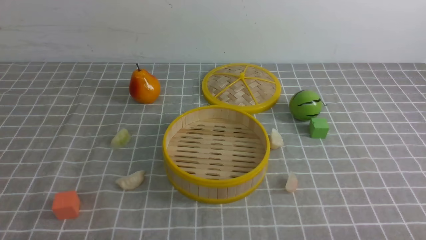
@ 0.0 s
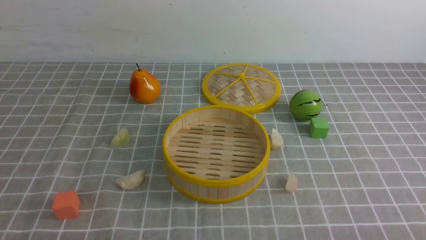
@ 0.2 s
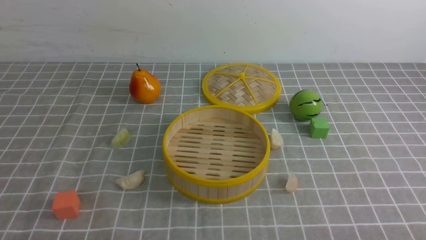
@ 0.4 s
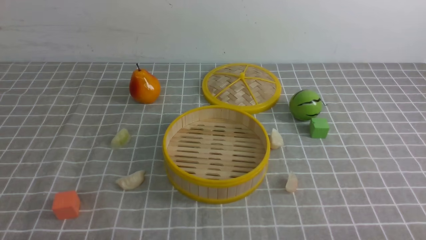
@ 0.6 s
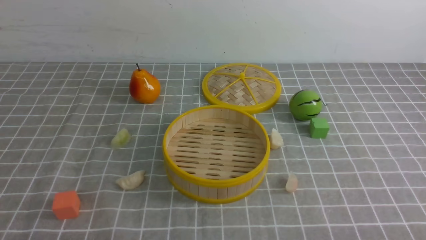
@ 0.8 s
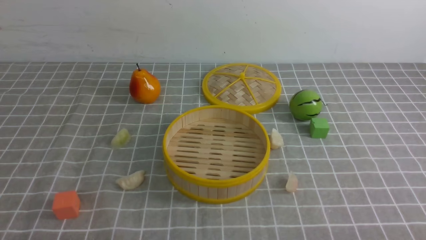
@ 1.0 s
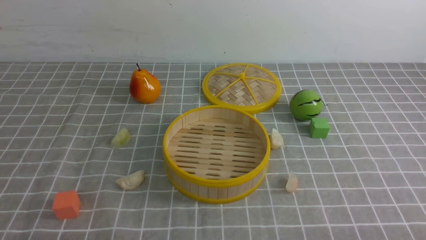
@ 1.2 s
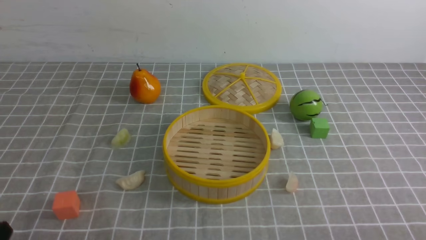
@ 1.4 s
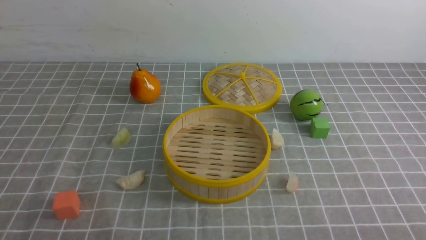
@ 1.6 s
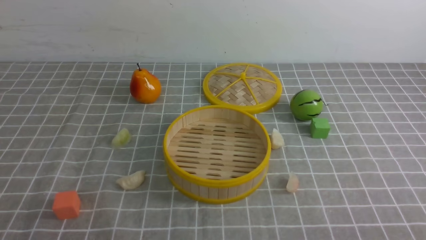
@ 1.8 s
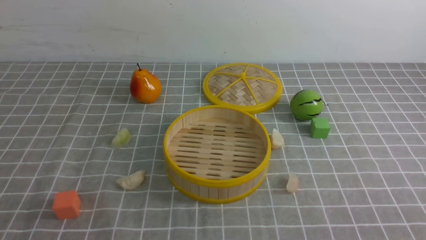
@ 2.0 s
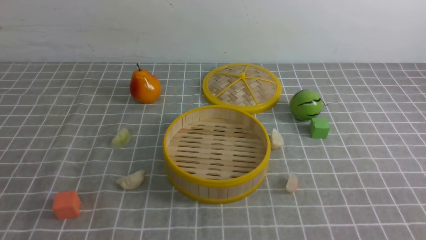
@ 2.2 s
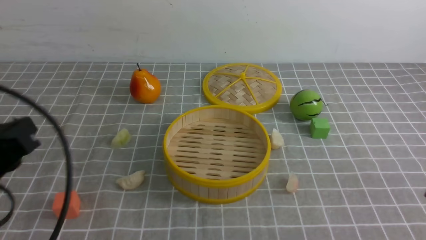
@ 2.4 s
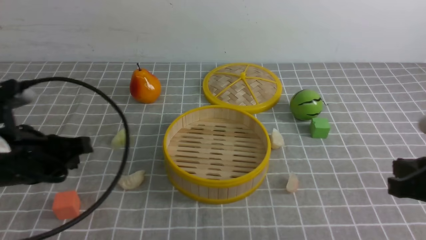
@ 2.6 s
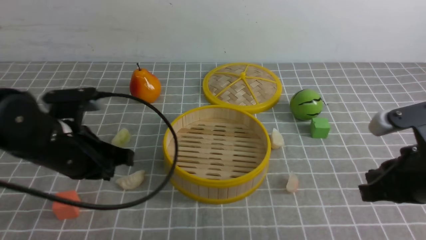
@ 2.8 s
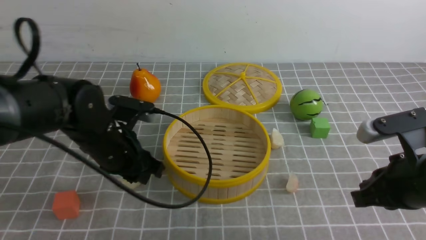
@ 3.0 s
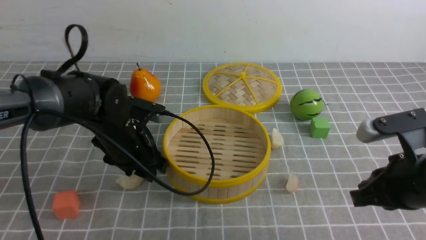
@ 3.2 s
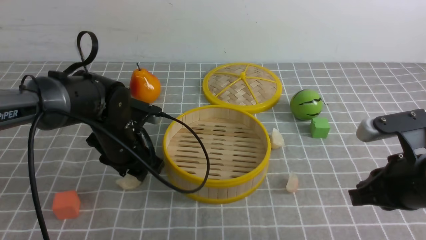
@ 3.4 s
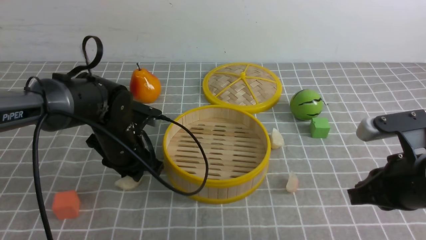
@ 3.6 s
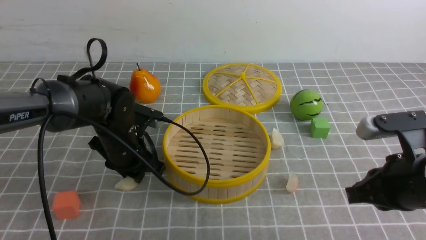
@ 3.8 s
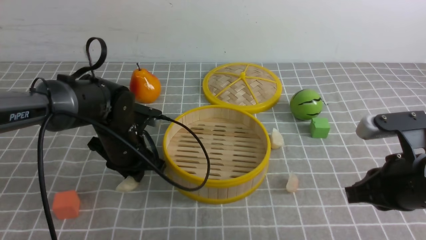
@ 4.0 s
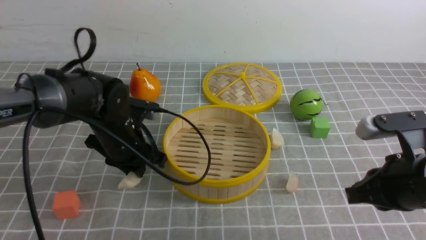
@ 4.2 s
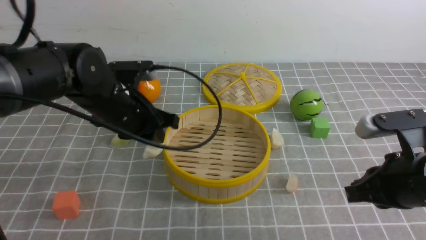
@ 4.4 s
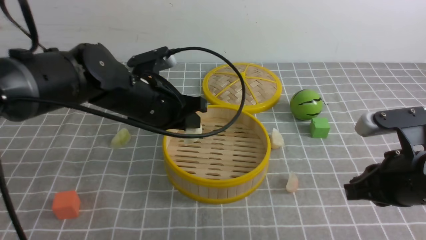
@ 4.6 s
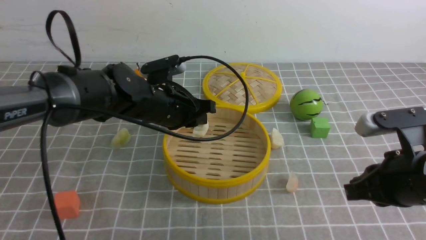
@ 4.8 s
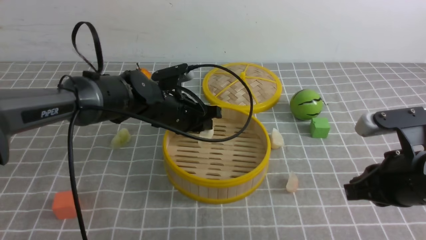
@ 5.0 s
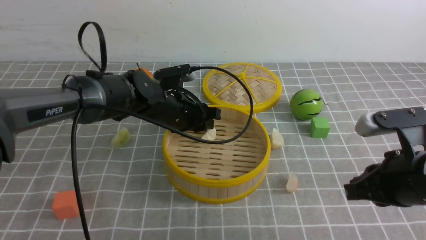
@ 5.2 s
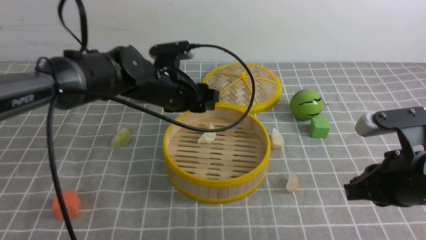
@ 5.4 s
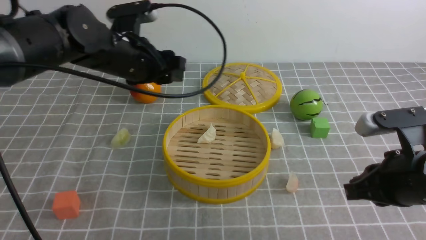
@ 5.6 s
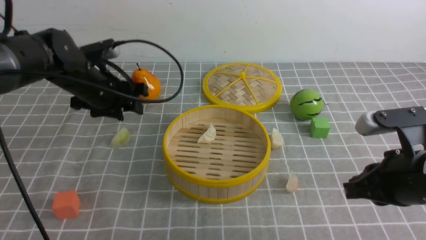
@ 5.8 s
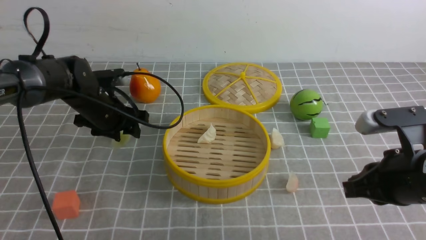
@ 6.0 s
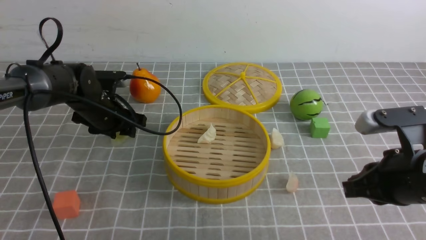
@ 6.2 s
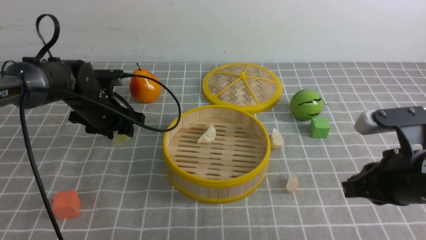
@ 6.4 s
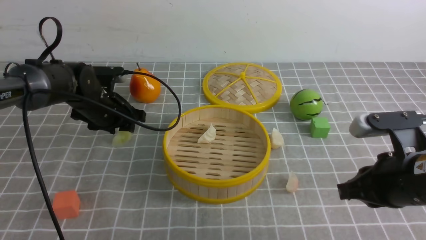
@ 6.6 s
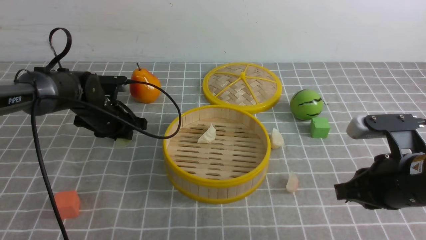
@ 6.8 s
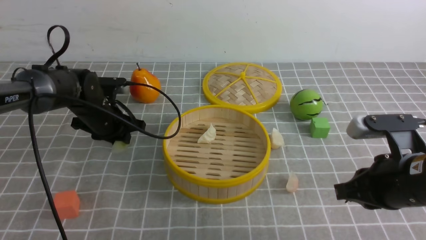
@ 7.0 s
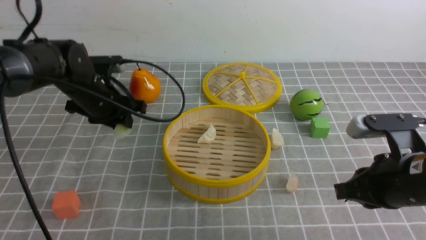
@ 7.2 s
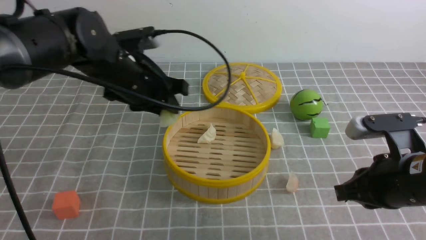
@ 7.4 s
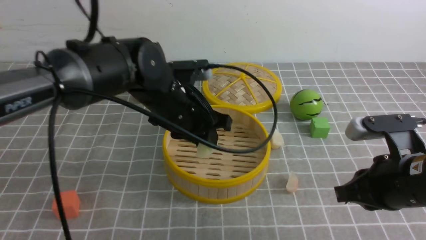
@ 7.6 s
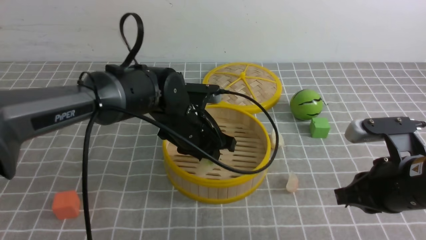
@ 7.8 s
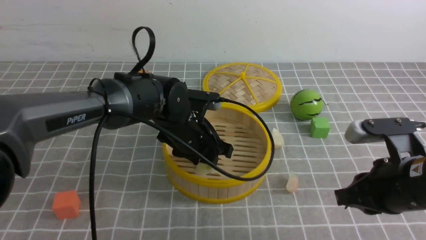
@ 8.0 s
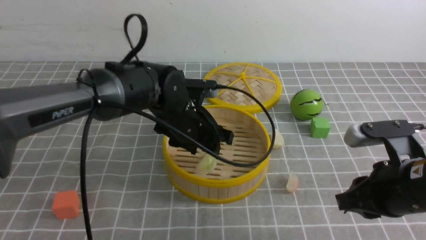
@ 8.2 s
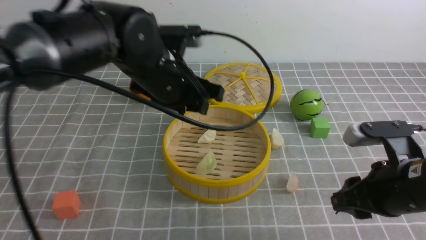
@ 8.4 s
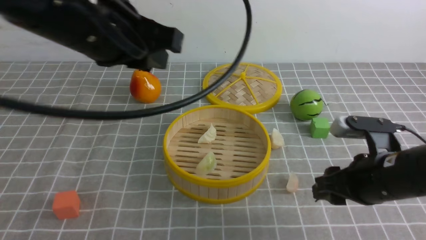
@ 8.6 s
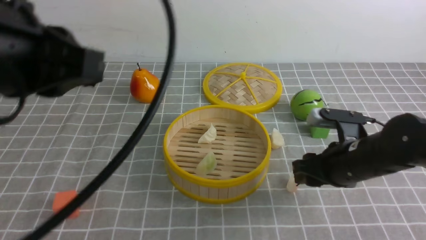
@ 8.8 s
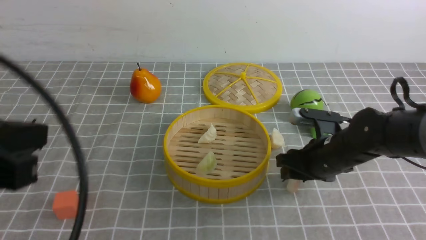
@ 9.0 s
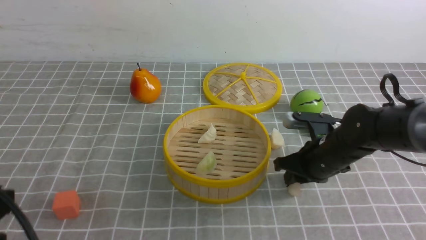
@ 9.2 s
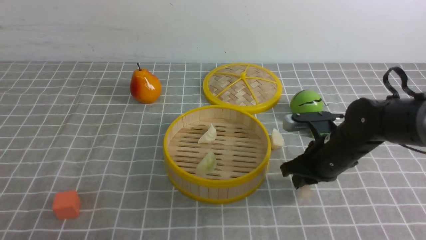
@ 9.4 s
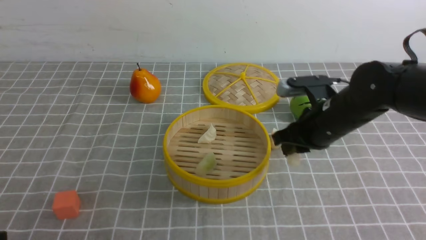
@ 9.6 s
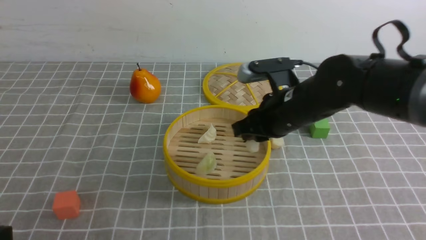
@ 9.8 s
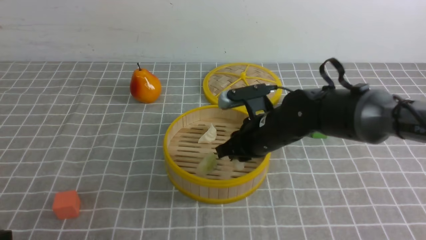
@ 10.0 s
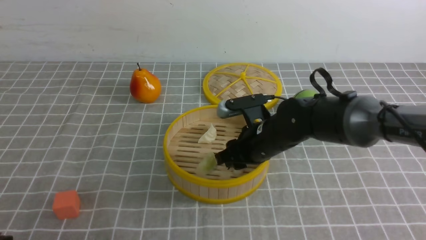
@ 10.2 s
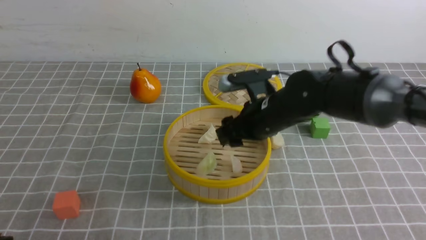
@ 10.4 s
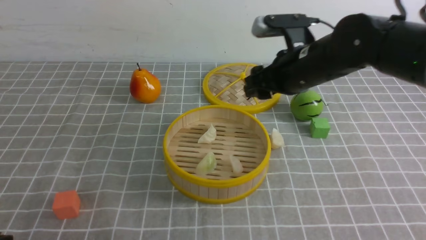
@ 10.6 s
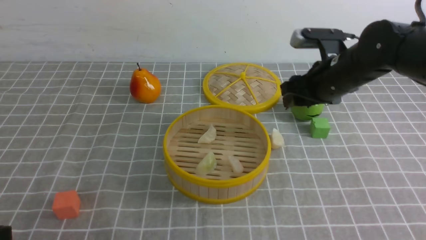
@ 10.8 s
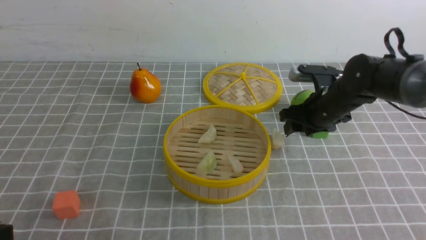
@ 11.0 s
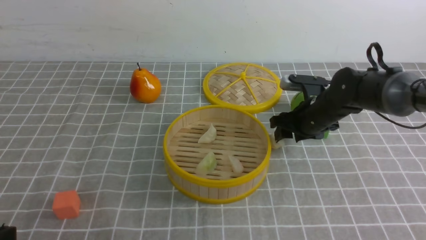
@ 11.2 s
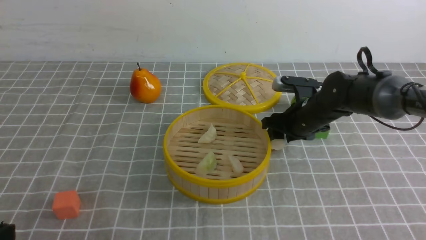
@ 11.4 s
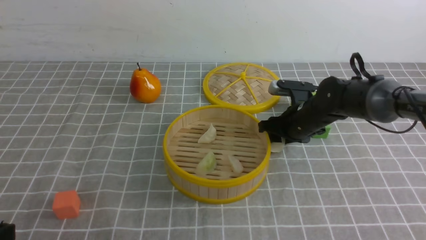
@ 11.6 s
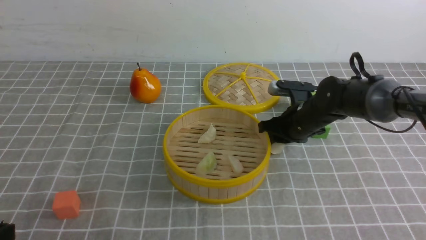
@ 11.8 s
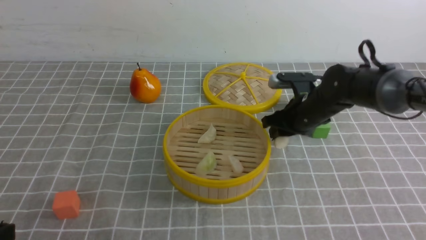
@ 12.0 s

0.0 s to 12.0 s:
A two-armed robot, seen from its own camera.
Task of the whole recording: put the dumplings into the steamer on the table with the grey tablecloth.
Step, 0.0 to 4.0 s: use the left arm to grab a dumpling.
Step, 4.4 to 5.4 s: use the left arm to put the dumpling into the steamer.
Step, 5.8 to 7.0 s: use the left arm to grab a dumpling.
Step, 7.2 to 8.4 s: use the left arm to put the dumpling into the steamer.
Step, 8.6 to 9.4 s: use the right arm to grab a dumpling.
Step, 9.6 to 10.4 s: use the right arm to put the dumpling into the steamer.
Step, 10.6 to 12.0 s: use the right arm to grab a dumpling.
1.6 to 3.0 s: The left gripper goes about 25 cm forward, and opens up, while the right gripper goes some 20 cm forward and to the left.
3.0 to 4.4 s: The left gripper ends up approximately 5 cm from where it was.
4.4 to 6.0 s: The left gripper goes approximately 10 cm forward and to the left, and opens up.
6.0 to 7.6 s: The left gripper travels to the right and backward by approximately 15 cm, and closes its fingers.
7.6 to 9.0 s: The right gripper moves forward and downward, about 15 cm, and opens up, while the left gripper heads backward, to the left and upward, covering some 30 cm, and closes up.
9.0 to 10.4 s: The right gripper travels to the left and upward by about 10 cm, and closes and opens again. The left gripper moves downward and backward, about 10 cm.
10.4 to 12.0 s: The right gripper is displaced to the right and forward by roughly 10 cm, and closes up.

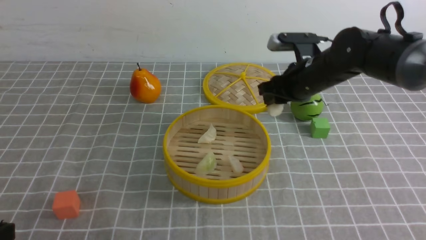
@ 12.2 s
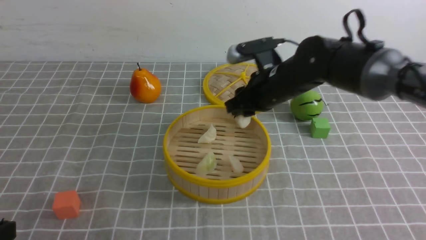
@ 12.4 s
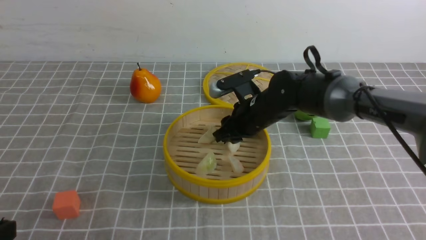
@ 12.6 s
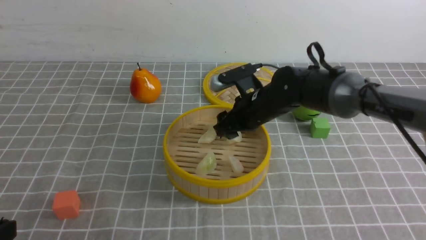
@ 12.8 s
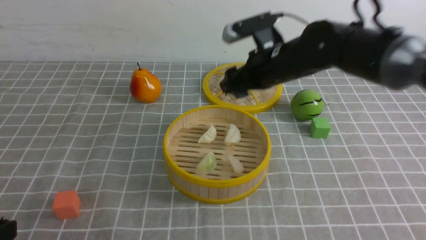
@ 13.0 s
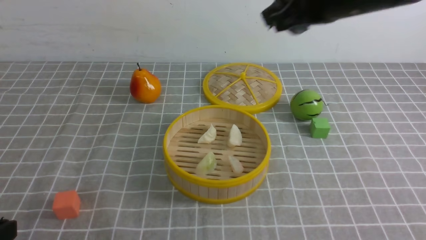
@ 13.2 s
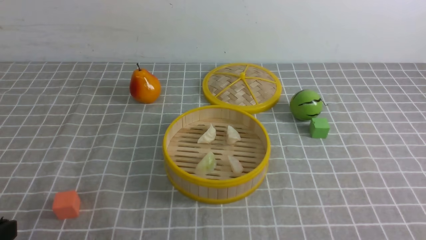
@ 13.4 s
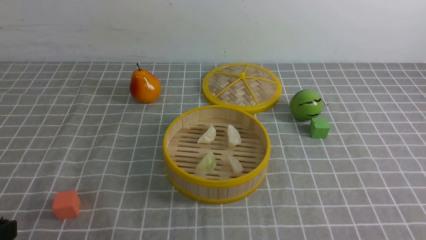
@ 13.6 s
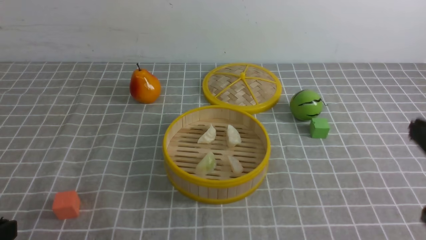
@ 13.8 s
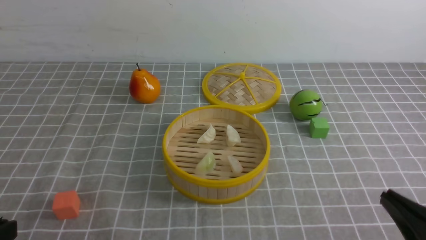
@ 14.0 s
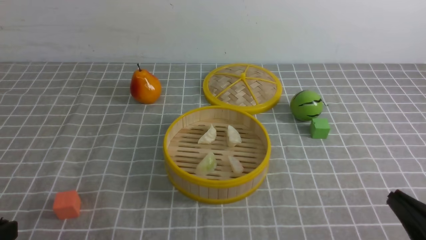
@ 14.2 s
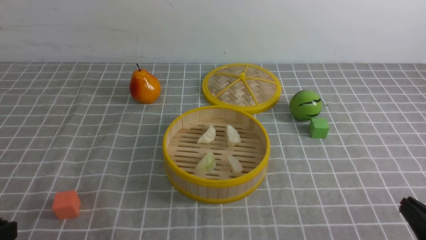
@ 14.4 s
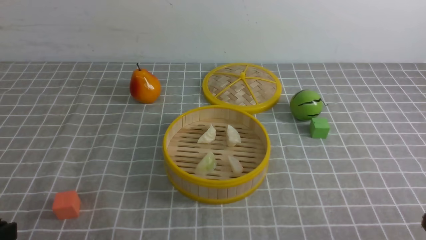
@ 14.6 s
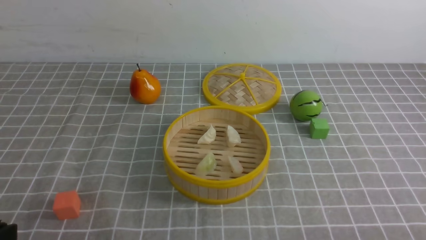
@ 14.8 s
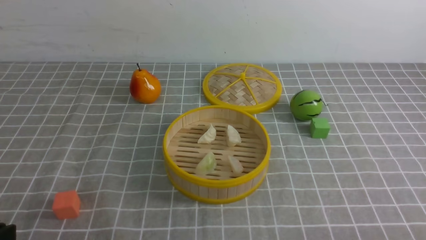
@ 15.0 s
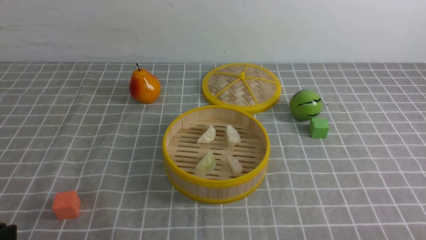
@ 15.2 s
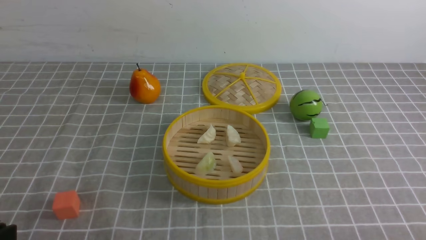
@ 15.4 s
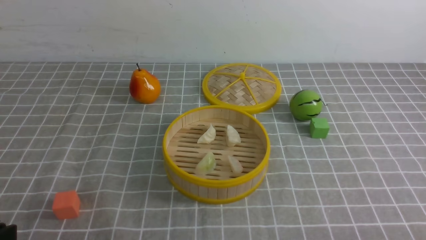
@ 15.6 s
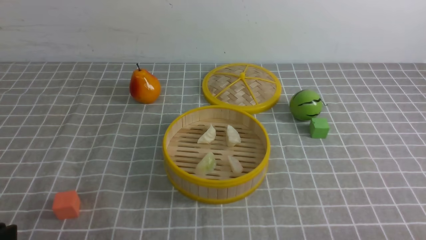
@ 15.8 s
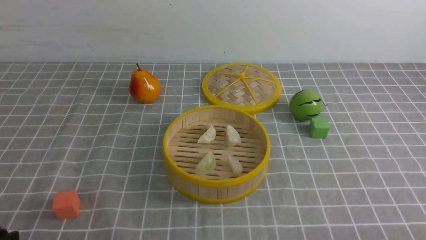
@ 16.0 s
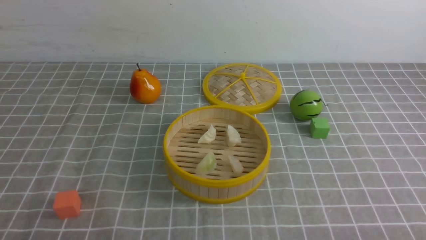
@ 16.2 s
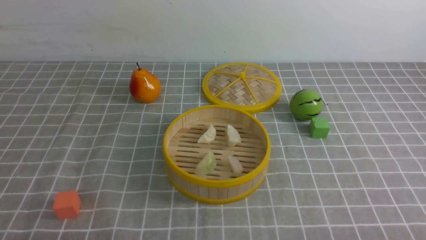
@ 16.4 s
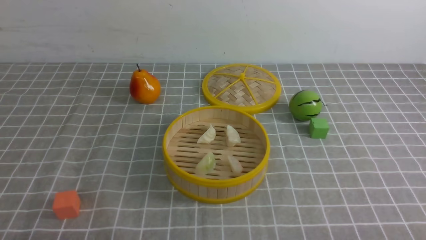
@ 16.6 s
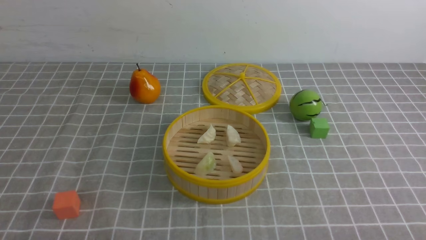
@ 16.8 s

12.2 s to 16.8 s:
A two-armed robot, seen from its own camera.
Task of the whole recording: put the dumplings into the steamer on the table with the grey tablecloth.
Step, 12.2 to 12.8 s: use the right arm to put the dumpling into the steamer.
12.2 to 13.8 s: The right gripper travels backward by roughly 30 cm, and closes its fingers.
